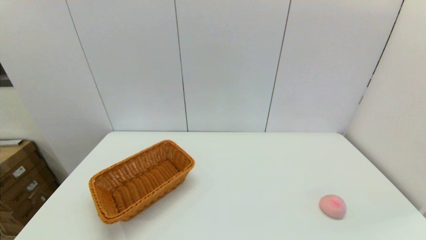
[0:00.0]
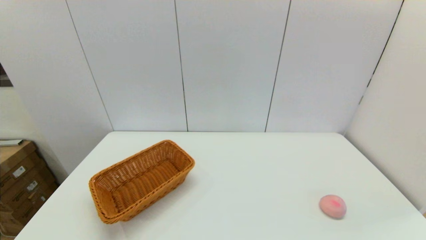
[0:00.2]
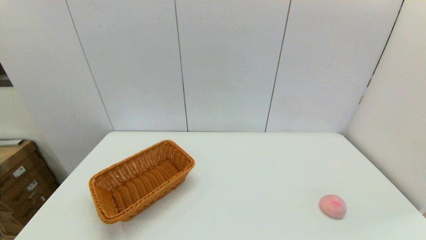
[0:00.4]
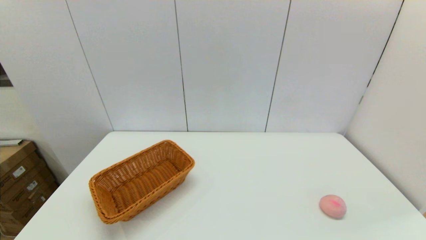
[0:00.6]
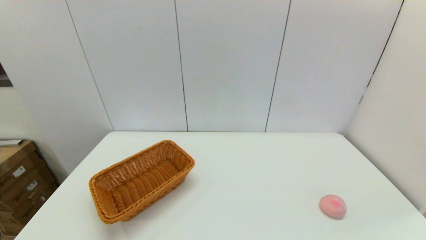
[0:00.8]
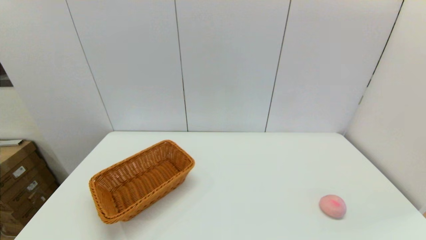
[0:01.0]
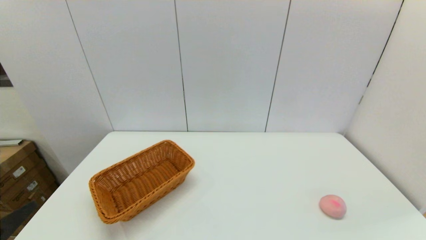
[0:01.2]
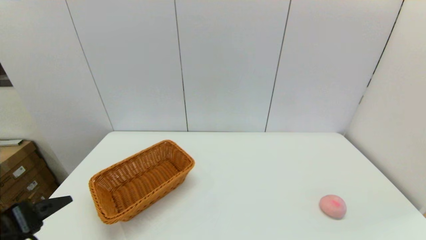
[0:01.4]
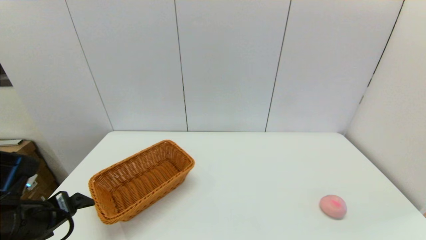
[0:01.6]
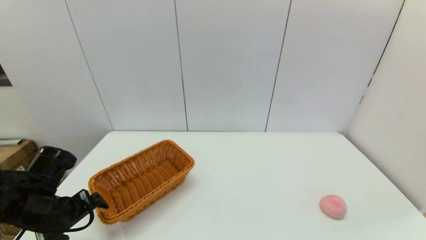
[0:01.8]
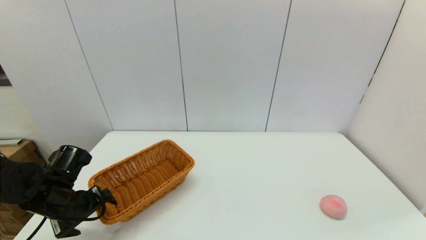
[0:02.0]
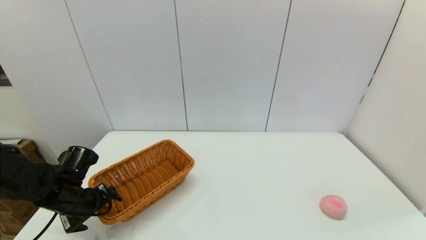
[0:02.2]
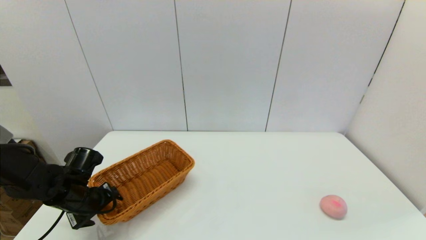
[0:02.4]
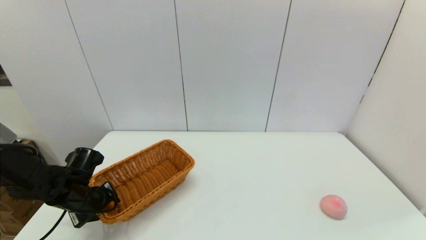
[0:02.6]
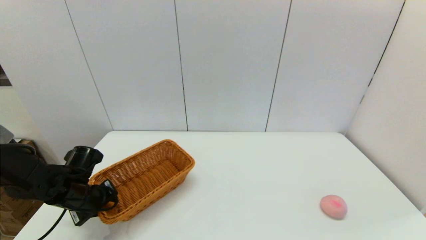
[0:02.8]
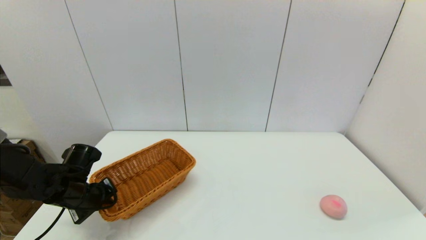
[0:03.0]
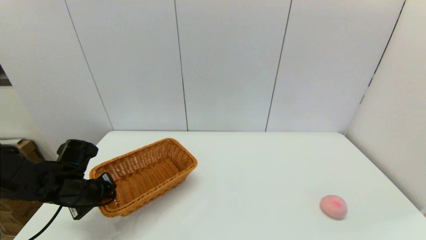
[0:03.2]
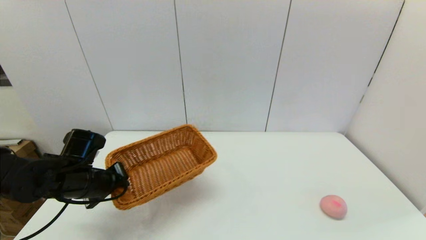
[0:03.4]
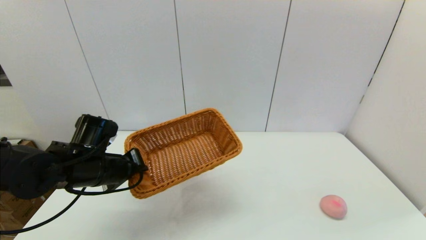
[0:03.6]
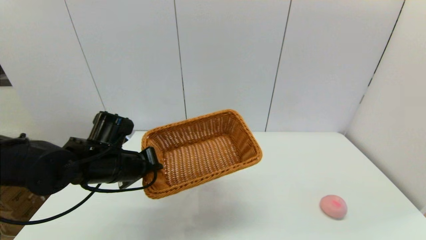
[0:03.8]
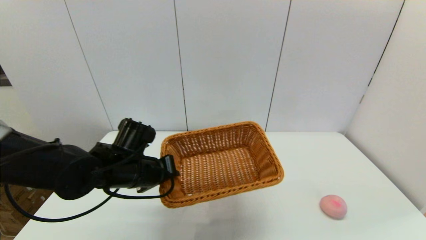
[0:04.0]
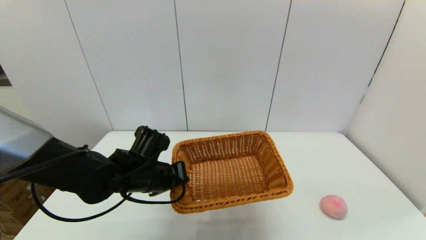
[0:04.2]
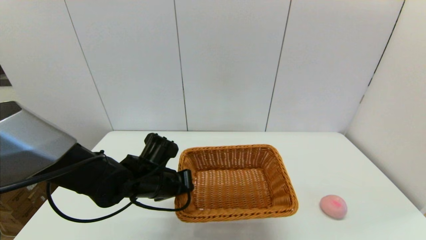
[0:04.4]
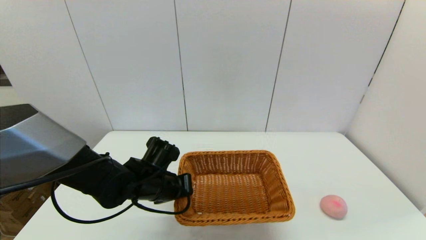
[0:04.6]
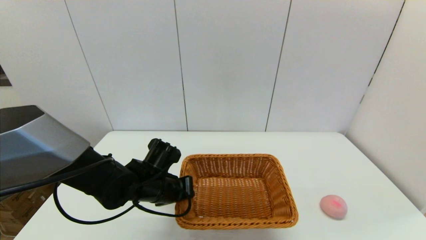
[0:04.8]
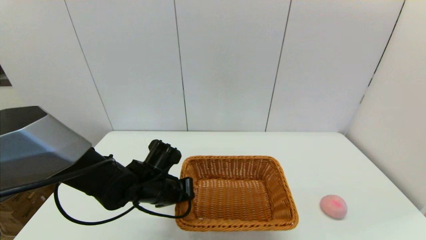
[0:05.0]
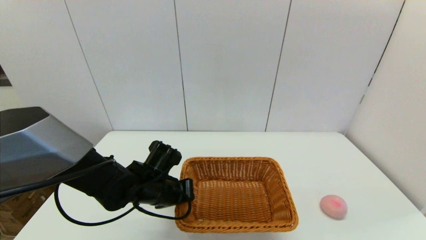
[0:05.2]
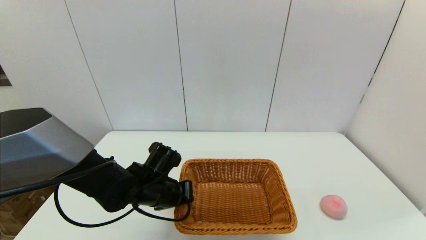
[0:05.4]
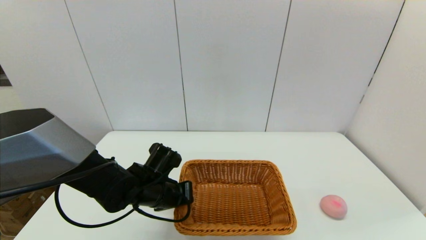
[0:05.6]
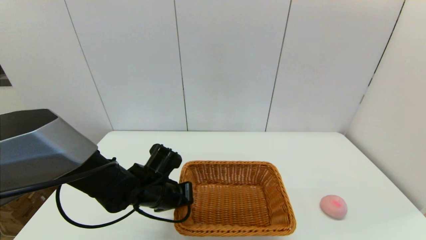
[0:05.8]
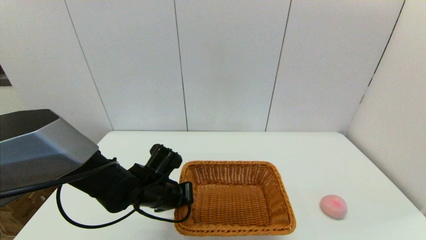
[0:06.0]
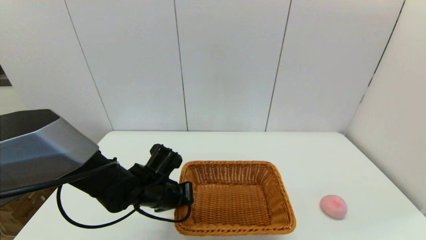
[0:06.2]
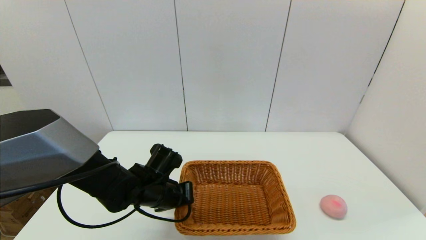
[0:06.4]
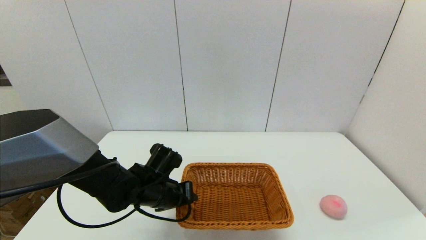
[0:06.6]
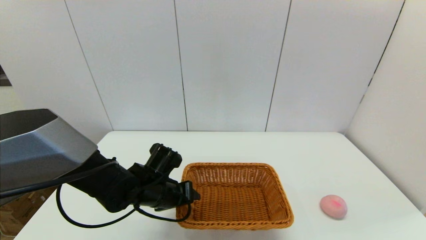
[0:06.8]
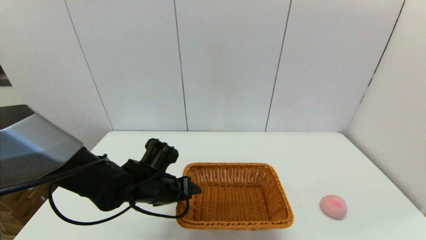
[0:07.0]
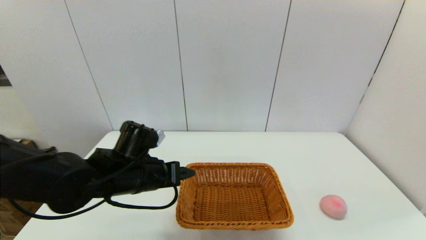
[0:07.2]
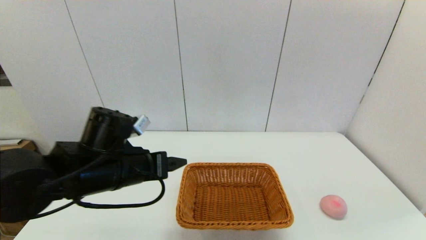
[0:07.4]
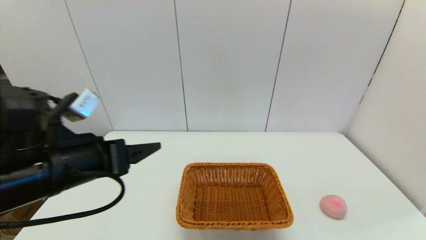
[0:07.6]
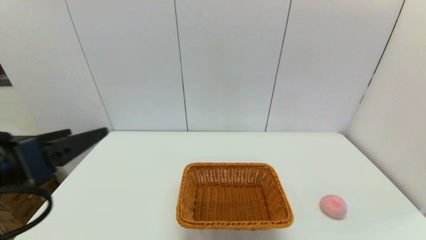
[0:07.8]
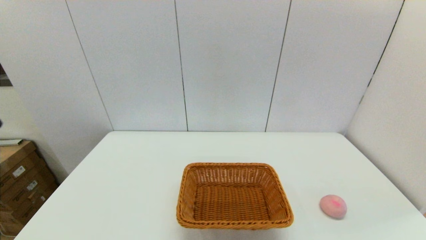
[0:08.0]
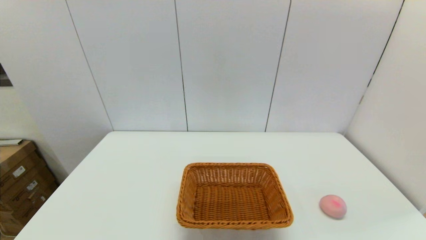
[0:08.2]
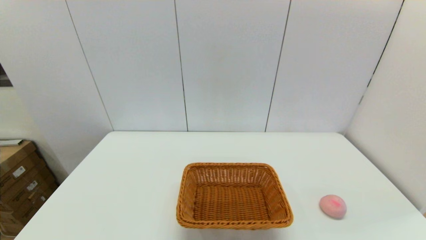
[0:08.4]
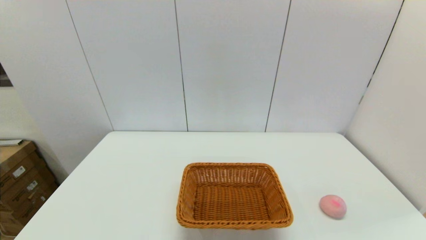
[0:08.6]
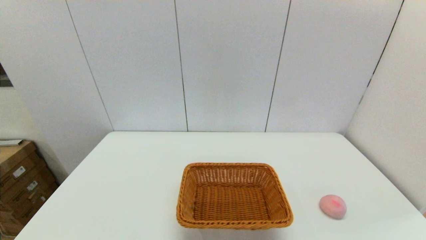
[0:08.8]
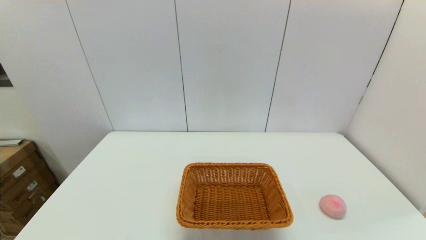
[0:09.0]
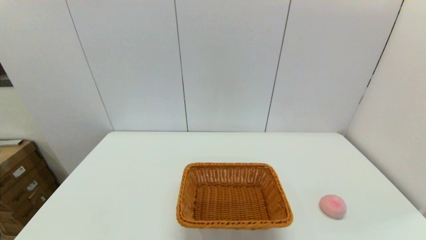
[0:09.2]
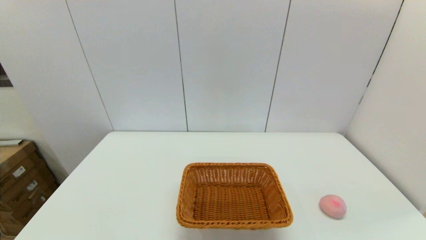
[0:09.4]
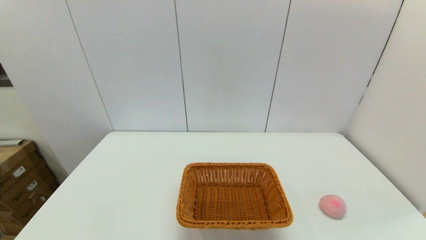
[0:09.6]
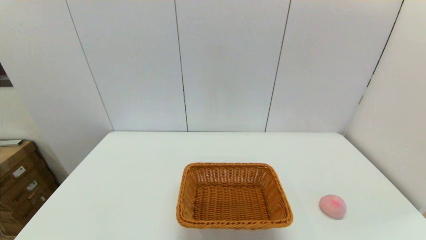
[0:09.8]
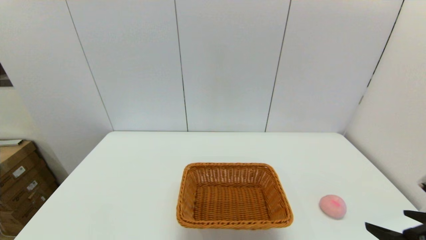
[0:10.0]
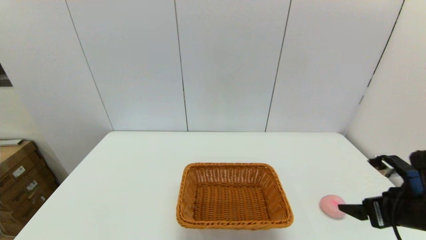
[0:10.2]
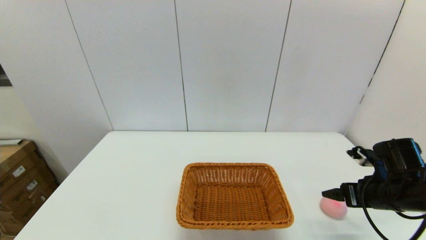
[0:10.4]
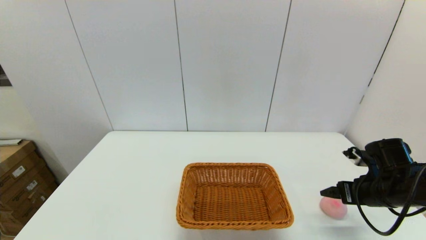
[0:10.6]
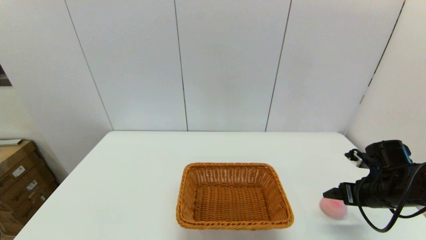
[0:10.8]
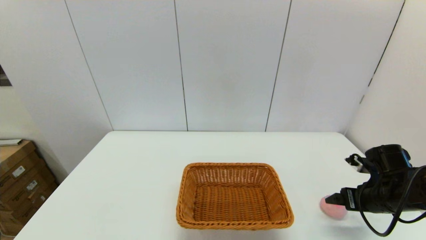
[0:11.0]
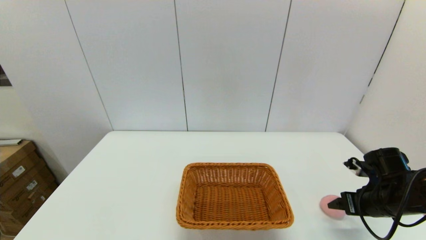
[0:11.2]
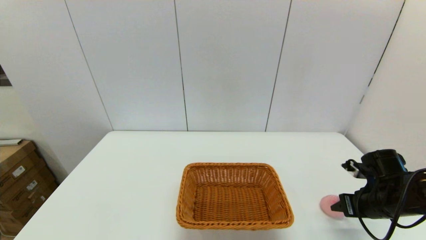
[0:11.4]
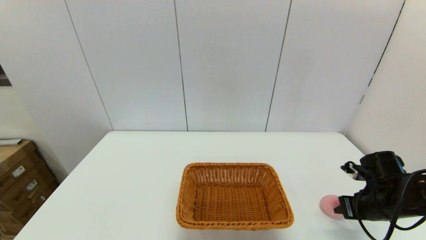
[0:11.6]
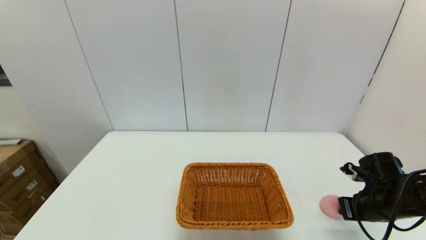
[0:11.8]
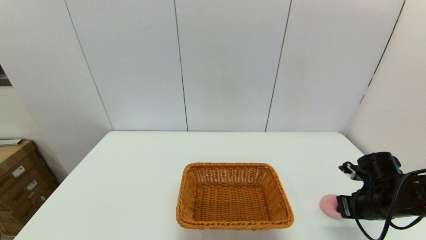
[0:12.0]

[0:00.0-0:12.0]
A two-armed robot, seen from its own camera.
Step, 0:00.0 to 0:03.0: Grasp the light basket with the left gripper.
Step, 0:03.2 to 0:06.6: Place the light basket on the middle of the table with the left gripper.
0:00.0 to 0:01.6: The left gripper heads forward, covering approximately 15 cm.
0:01.6 to 0:03.0: The left gripper heads forward and downward, covering roughly 15 cm, and closes up.
0:03.0 to 0:04.4: The left gripper moves to the right, some 15 cm.
0:04.4 to 0:06.0: The grippers stay close to where they were, moving slightly.
0:06.0 to 0:07.6: The left gripper travels upward, backward and to the left by roughly 25 cm, and opens up.
0:07.6 to 0:09.0: The left gripper shifts approximately 25 cm backward, downward and to the left.
0:09.0 to 0:10.4: The right gripper goes approximately 25 cm forward.
0:10.4 to 0:12.0: The right gripper closes its fingers.

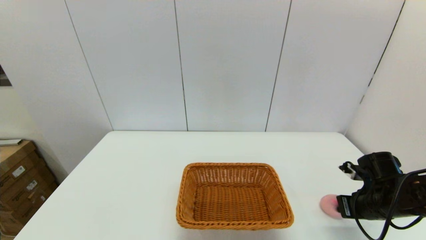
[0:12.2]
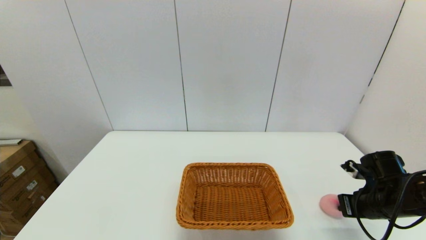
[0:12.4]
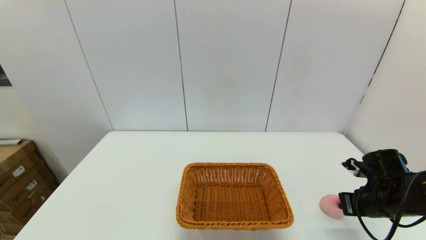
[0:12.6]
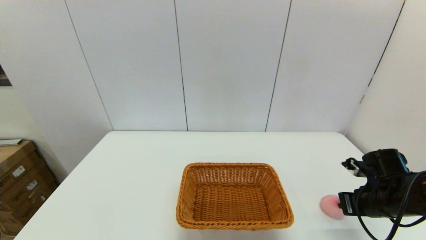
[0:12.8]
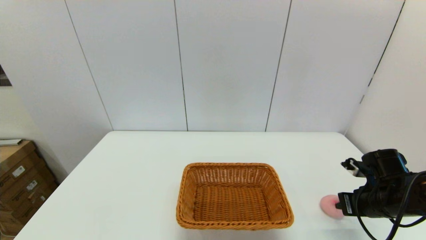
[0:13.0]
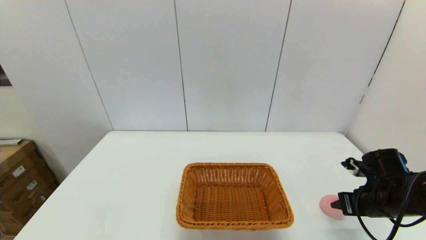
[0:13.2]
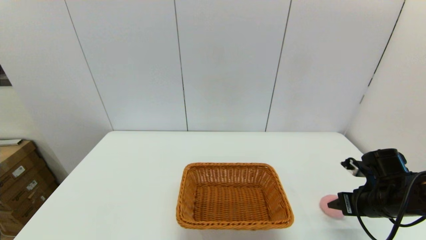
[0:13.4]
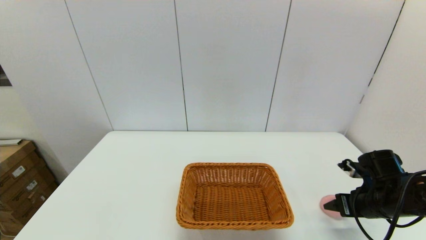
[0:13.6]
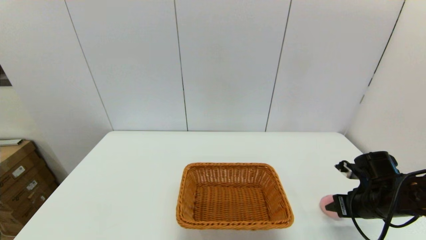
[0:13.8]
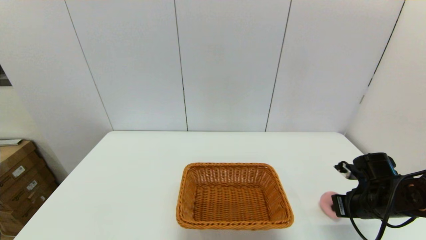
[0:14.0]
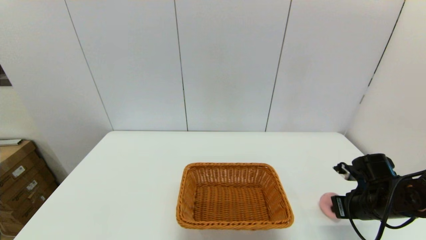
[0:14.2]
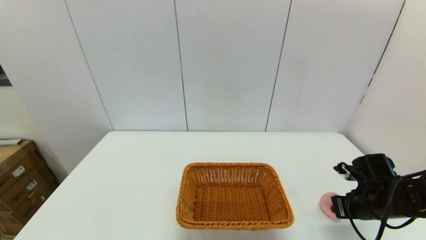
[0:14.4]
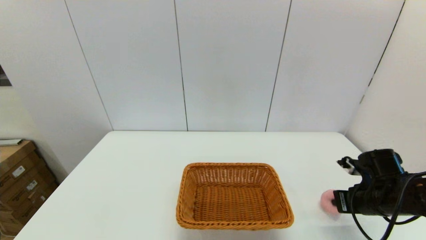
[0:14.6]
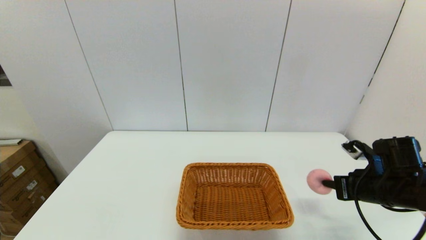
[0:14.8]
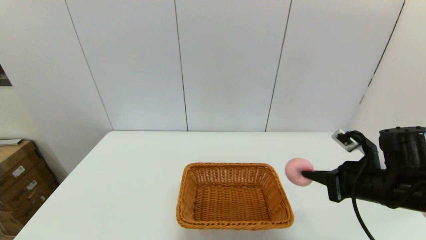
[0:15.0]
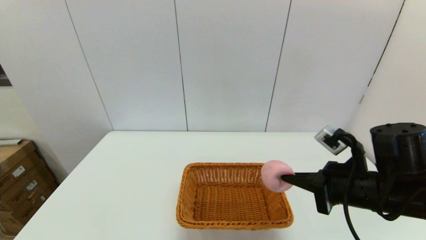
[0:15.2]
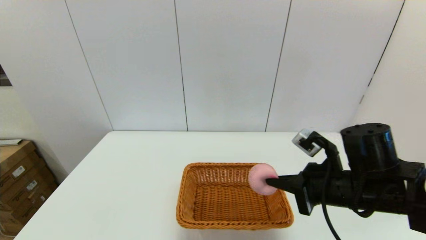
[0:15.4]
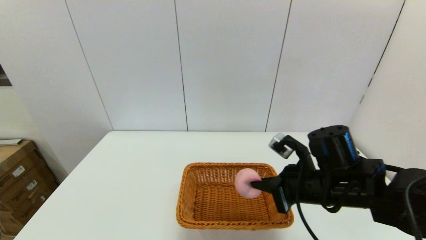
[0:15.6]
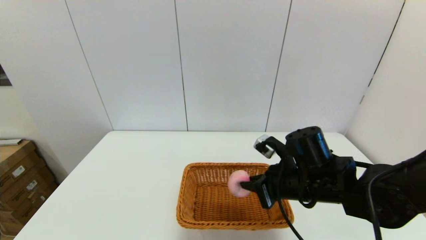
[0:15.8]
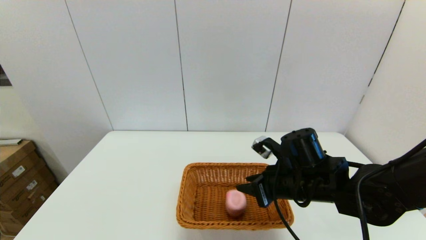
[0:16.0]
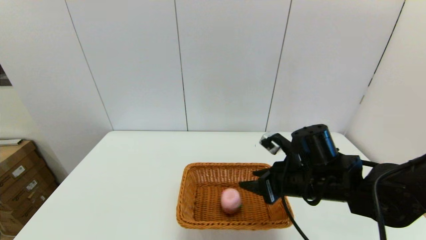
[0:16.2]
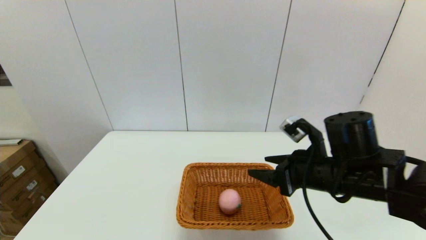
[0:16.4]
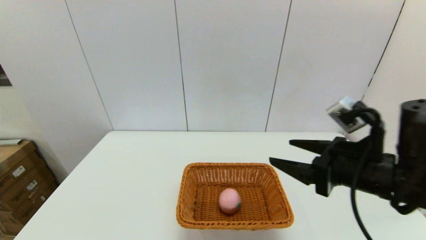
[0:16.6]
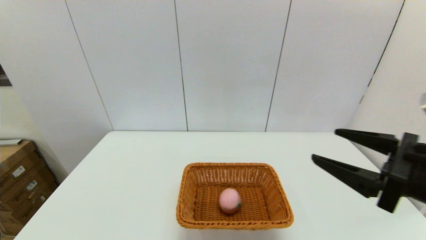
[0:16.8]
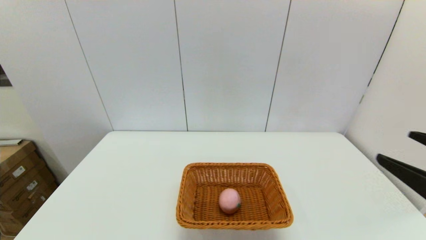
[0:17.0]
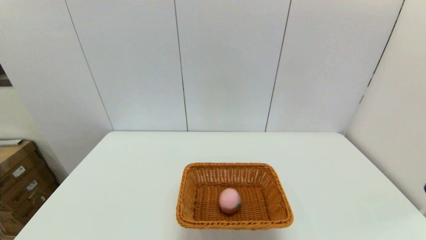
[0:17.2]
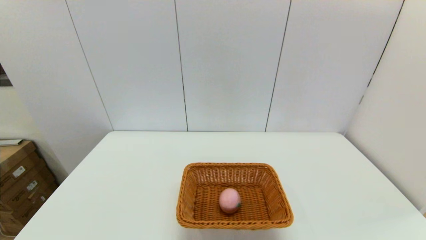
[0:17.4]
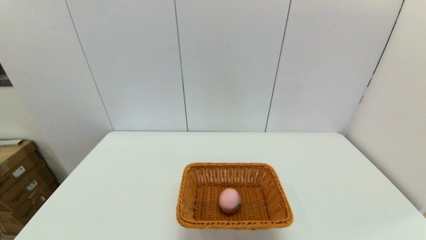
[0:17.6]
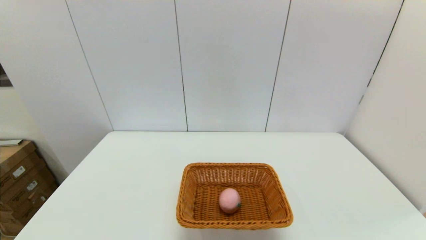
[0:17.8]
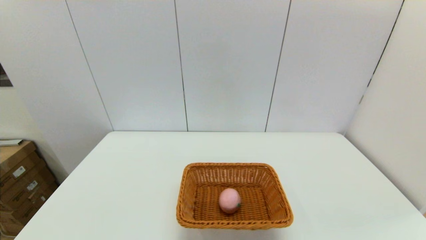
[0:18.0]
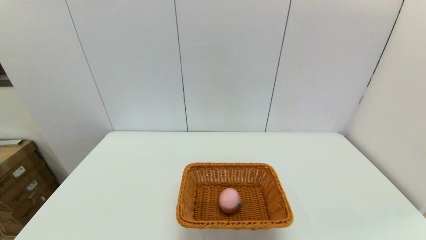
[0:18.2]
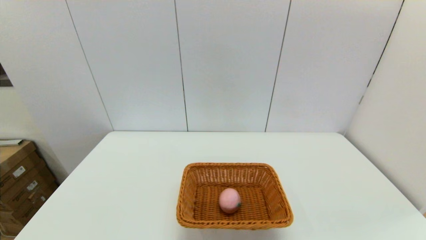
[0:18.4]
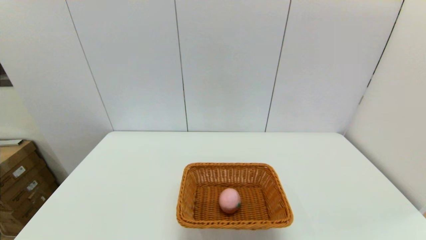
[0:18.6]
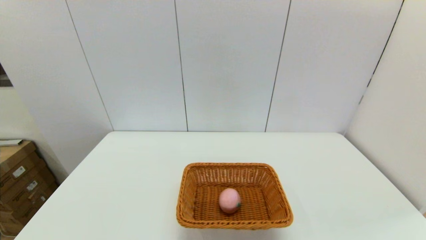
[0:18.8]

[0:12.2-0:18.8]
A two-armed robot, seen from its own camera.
Step, 0:14.2 to 0:16.0: Place the peach into the light basket with the right gripper.
0:12.2 to 0:13.8: The right gripper opens its fingers.
0:13.8 to 0:15.4: The right gripper heads to the left and upward, covering about 15 cm, and closes up.
0:15.4 to 0:17.2: The right gripper shifts approximately 25 cm backward and to the right, and opens its fingers.
